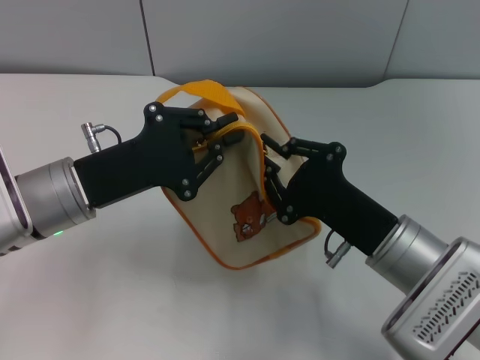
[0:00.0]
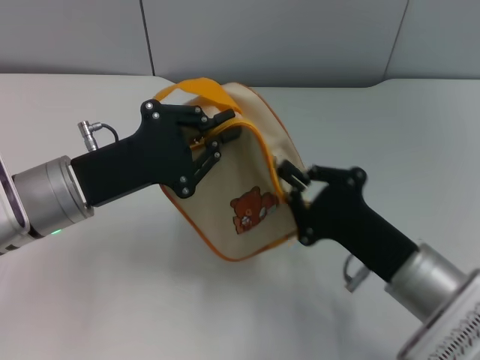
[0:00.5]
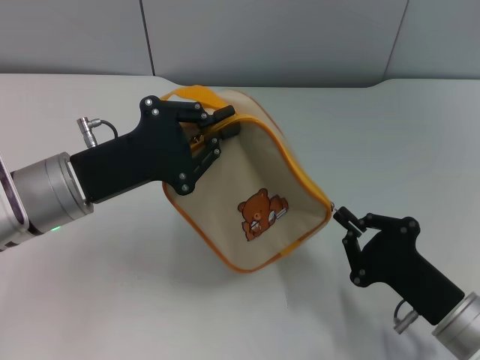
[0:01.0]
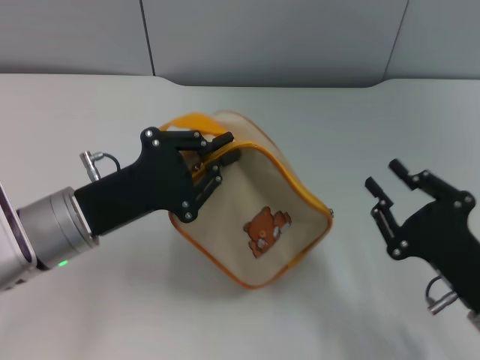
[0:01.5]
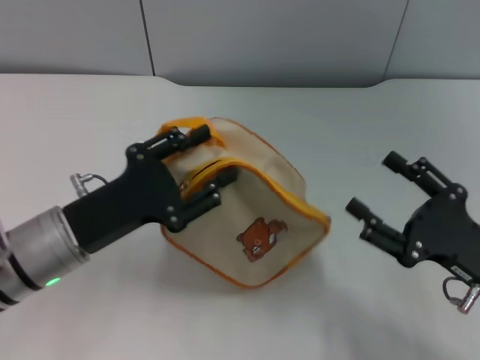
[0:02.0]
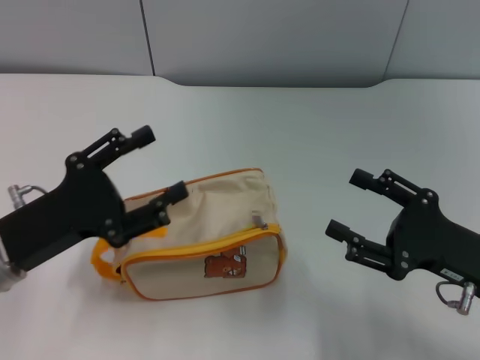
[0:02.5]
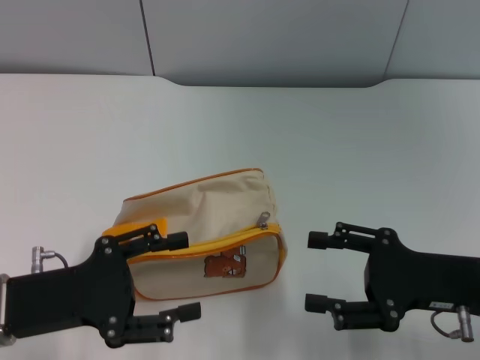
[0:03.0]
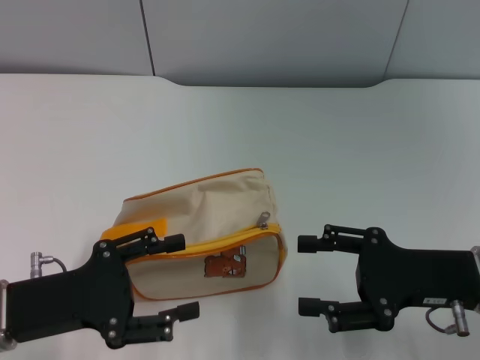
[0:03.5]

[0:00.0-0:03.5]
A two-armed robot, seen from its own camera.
Step, 0:02.0 to 0:02.5: Place the bag on the table with left gripper.
0:00.0 to 0:02.0: The left gripper shifts by about 5 cm, and opens; the right gripper goes some 10 cm to the right, and opens up.
0:02.0 to 0:03.5: The left gripper moves roughly 5 cm, and opens up, while the right gripper changes place by some 5 cm.

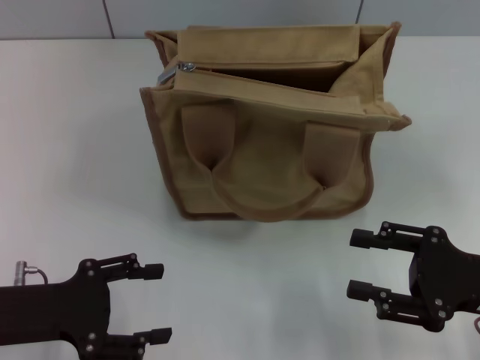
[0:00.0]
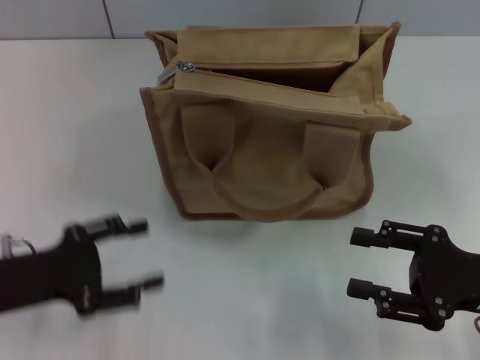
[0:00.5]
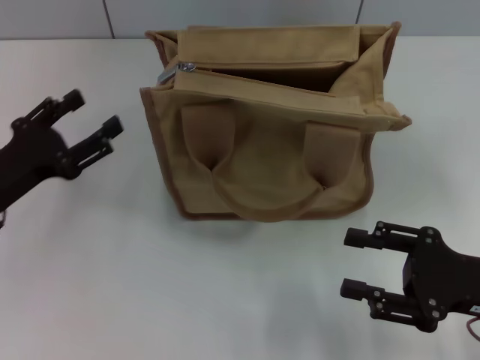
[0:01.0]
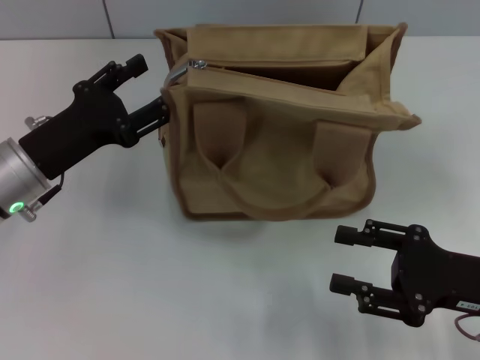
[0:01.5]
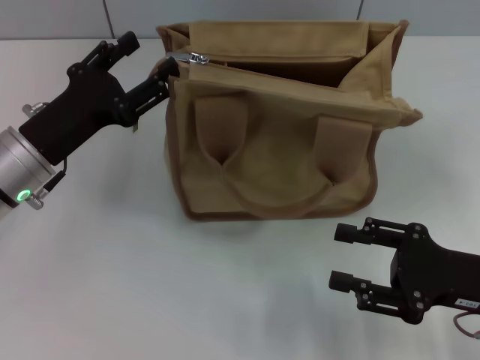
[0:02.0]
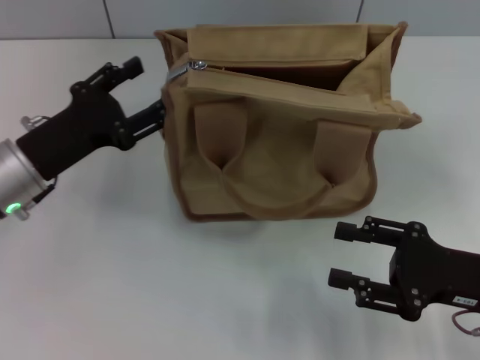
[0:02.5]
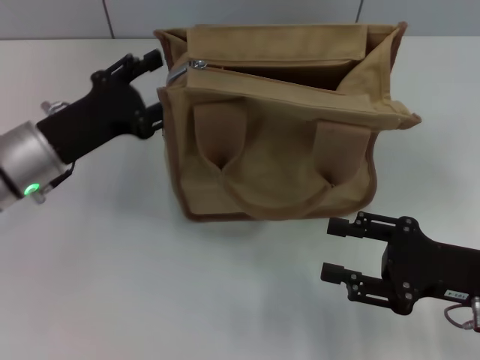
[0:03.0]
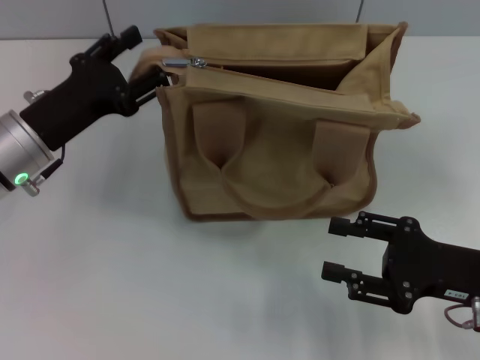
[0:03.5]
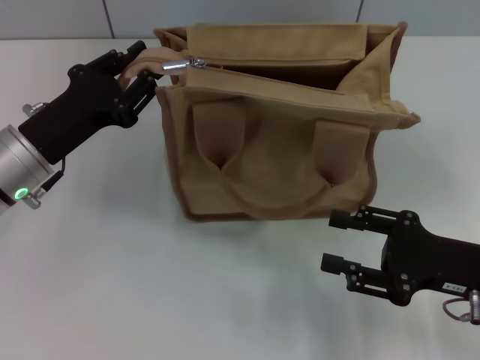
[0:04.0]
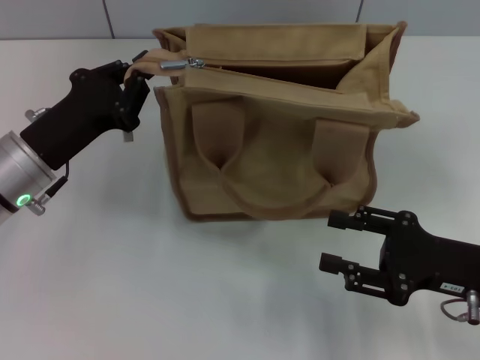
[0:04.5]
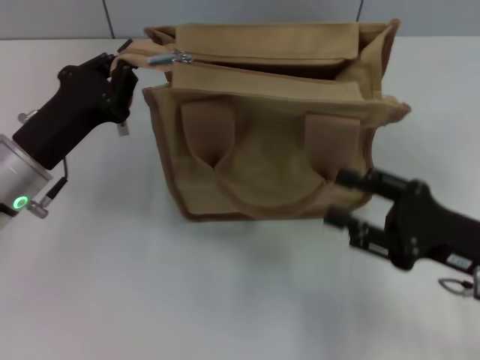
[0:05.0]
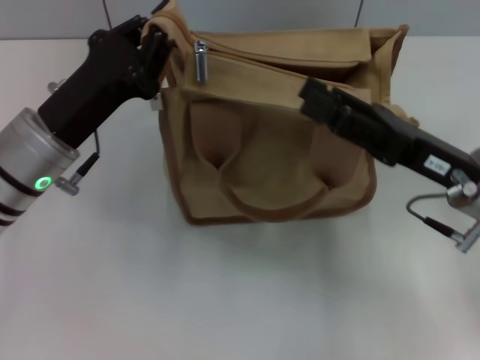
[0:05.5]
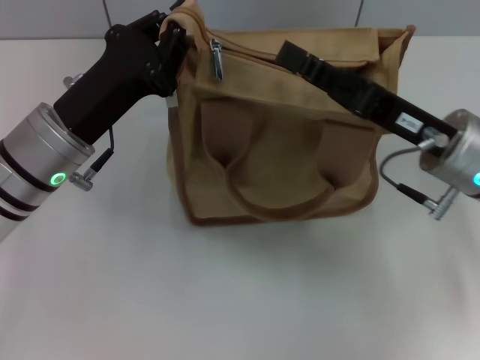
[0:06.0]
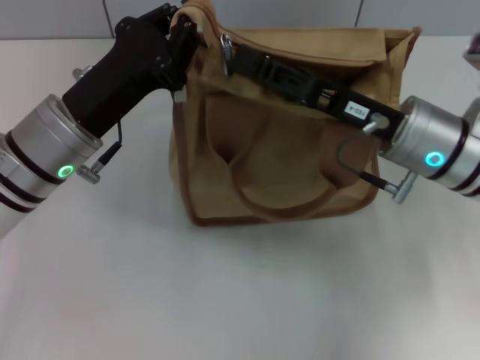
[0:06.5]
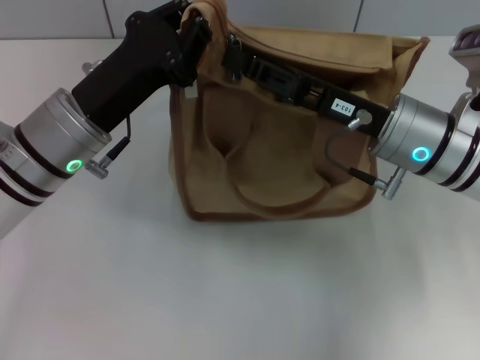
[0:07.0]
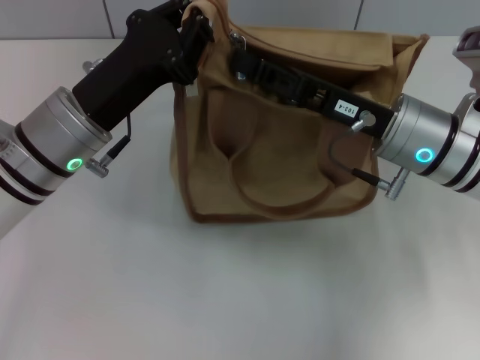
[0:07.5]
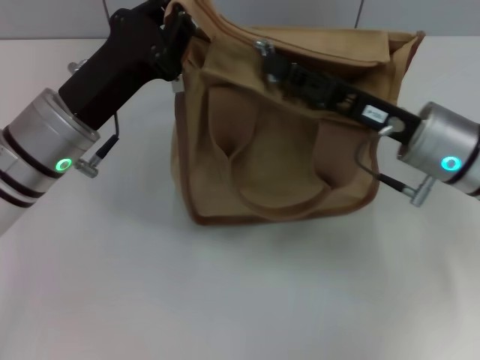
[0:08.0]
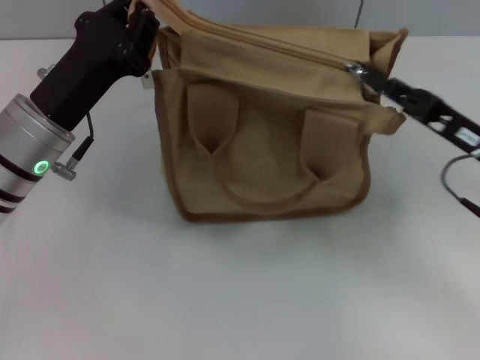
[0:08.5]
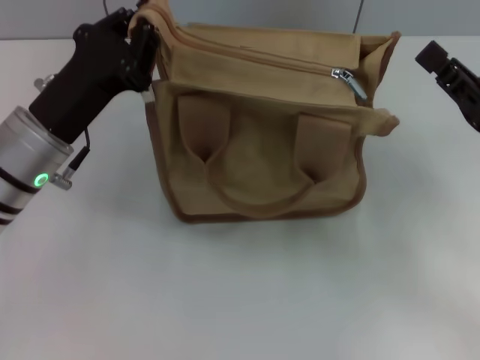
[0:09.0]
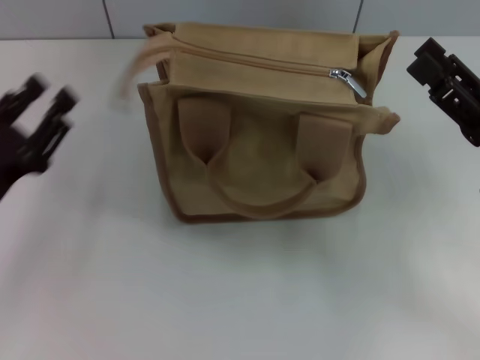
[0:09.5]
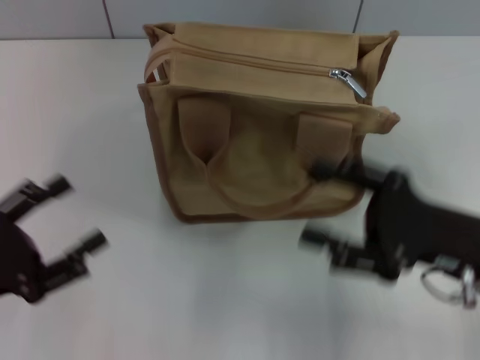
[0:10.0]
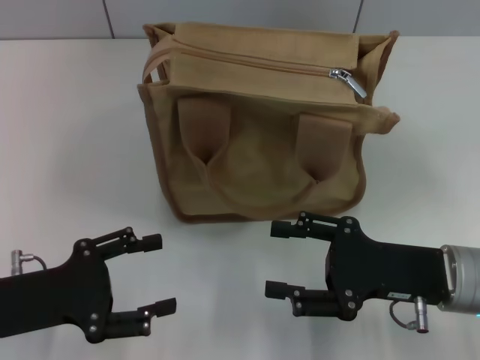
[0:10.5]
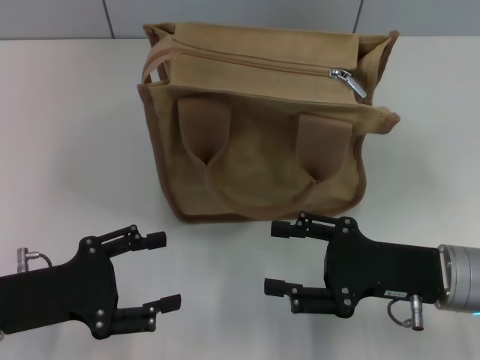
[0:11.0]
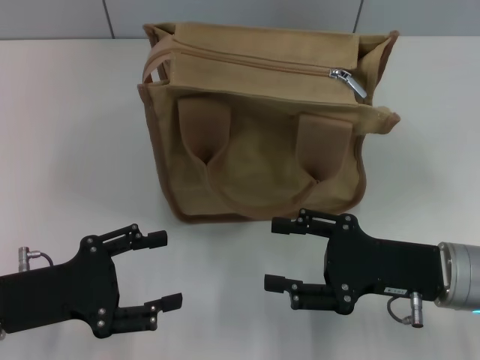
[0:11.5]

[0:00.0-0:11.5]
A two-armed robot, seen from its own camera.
Step, 0:00.0 to 0:08.5: Pull up the zipper with your right hand.
0:00.0 to 0:02.0: The left gripper is displaced forward by approximately 10 cm.
0:02.0 to 0:04.0: There are only small adjustments of the grippers.
0:04.0 to 0:06.0: The right gripper is displaced forward, to the left and upward by some 10 cm, while the left gripper moves approximately 5 cm, and closes its fingers.
0:06.0 to 0:07.5: The right gripper closes up.
0:07.5 to 0:09.5: The left gripper heads to the left, backward and downward, covering roughly 15 cm, and opens its fingers. Meanwhile the right gripper goes some 15 cm to the right and backward, and opens its fingers.
0:09.5 to 0:11.5: The right gripper travels to the left by some 5 cm. The left gripper opens up.

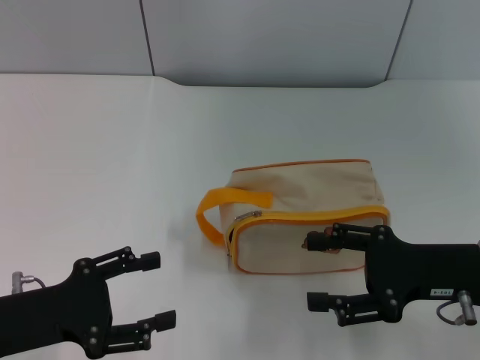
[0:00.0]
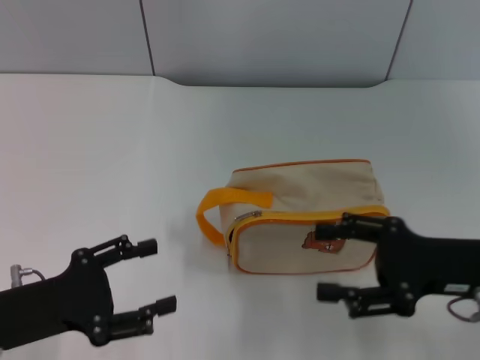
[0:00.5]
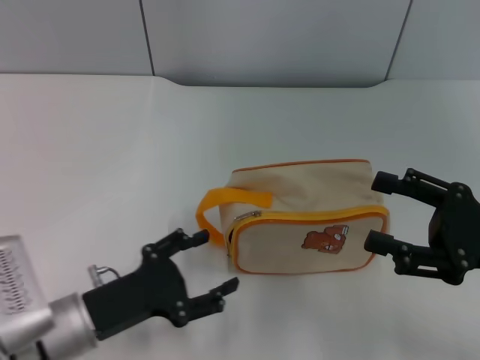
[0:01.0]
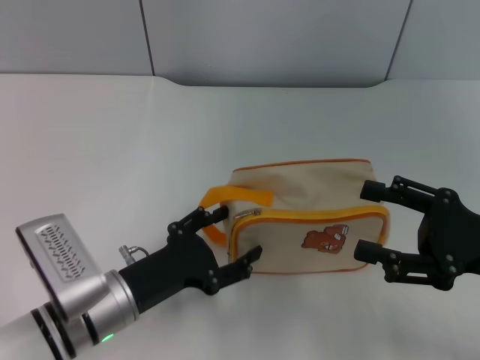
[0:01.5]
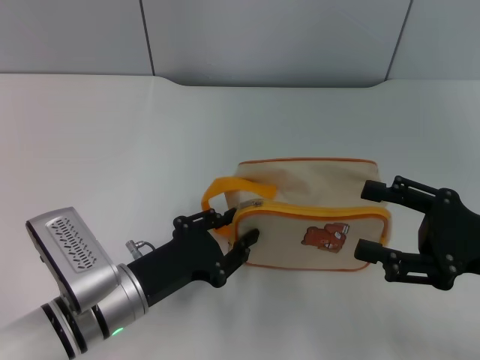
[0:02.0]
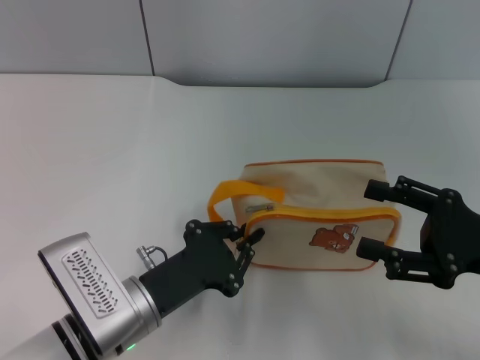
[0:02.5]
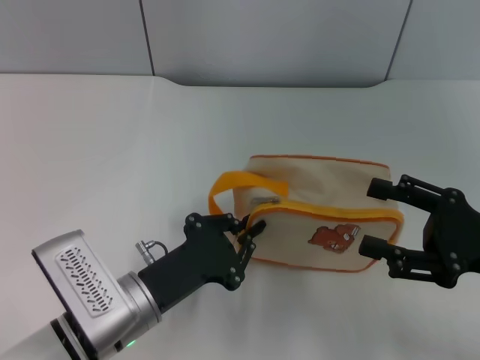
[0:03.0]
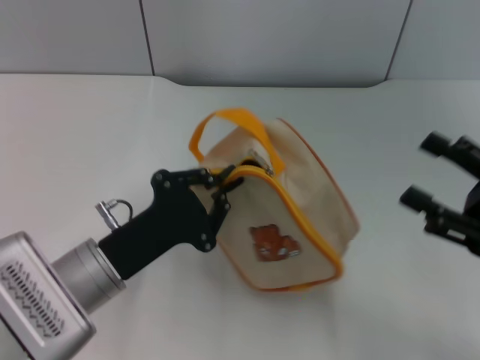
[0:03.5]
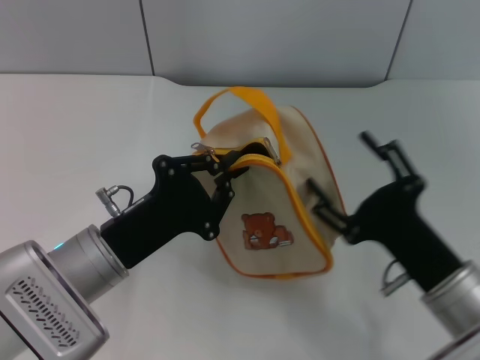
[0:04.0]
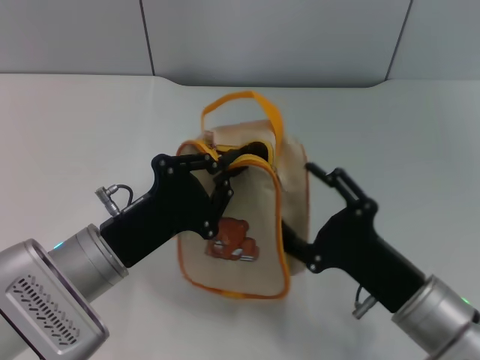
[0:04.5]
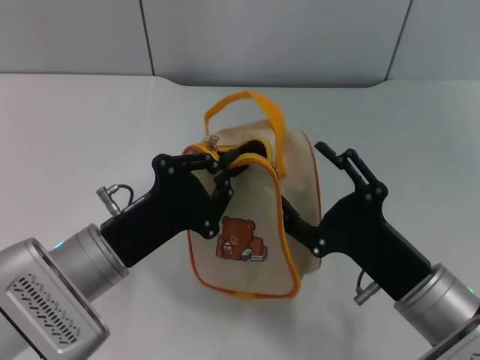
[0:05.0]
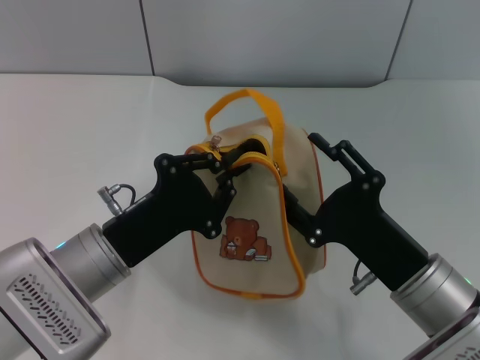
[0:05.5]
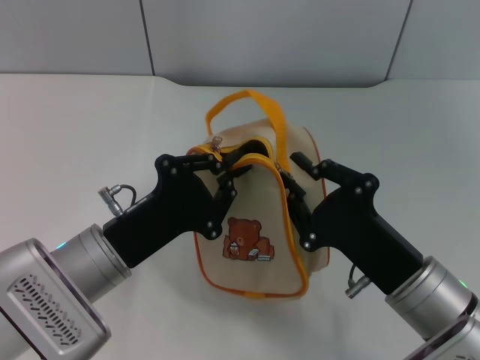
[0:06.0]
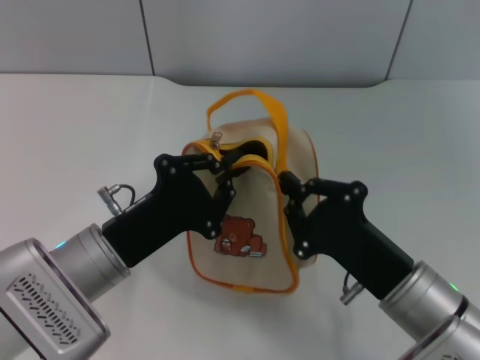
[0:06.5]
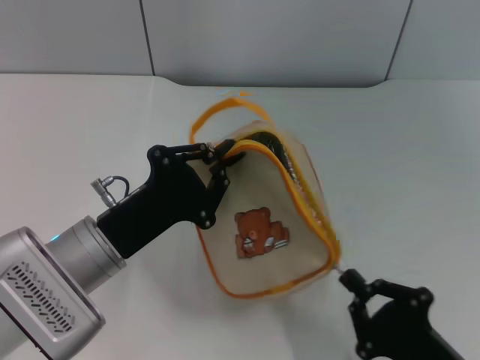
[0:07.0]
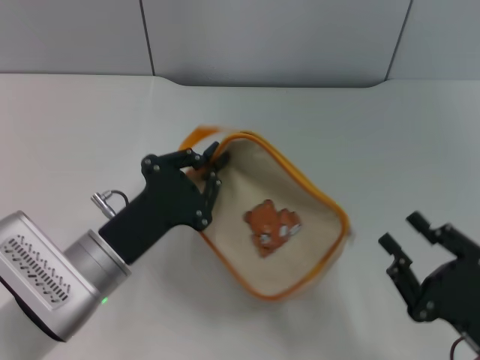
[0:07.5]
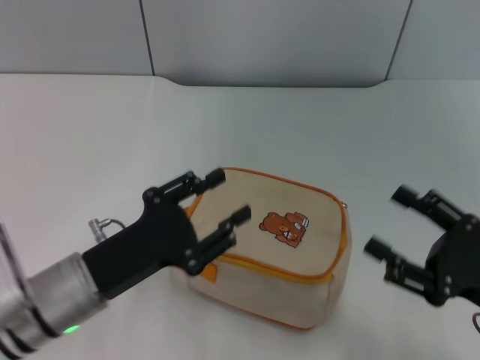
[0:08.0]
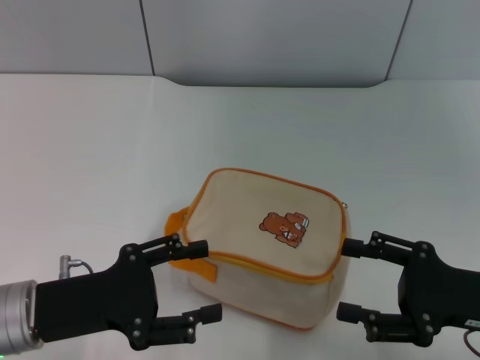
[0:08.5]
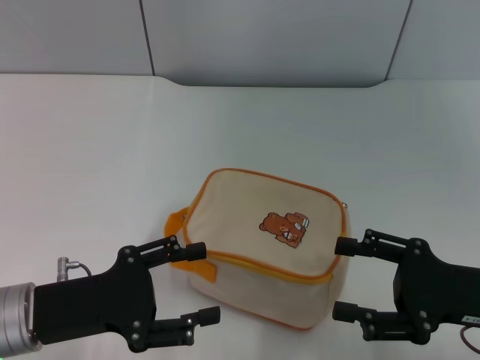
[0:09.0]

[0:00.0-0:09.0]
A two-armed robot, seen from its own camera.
Step, 0:00.0 to 0:03.5: Pick up the bag with left gripper.
Step, 0:04.0 to 0:07.0: Unzip the zipper of bag with right gripper.
0:00.0 to 0:02.0: The left gripper goes roughly 15 cm to the right and downward.
0:02.0 to 0:04.5: The left gripper closes, while the right gripper heads to the left and downward, covering about 15 cm.
0:04.5 to 0:07.0: The right gripper heads backward, covering roughly 10 cm, and closes up.
0:07.0 to 0:09.0: The left gripper travels to the left by approximately 5 cm, and opens. The right gripper goes about 15 cm forward, upward and to the right, and opens.
